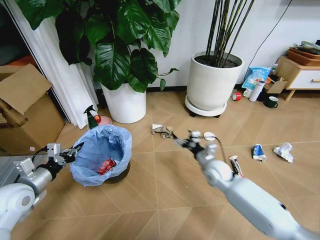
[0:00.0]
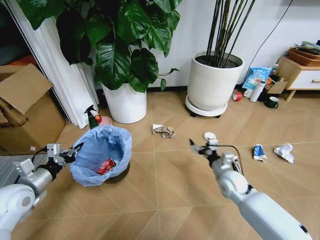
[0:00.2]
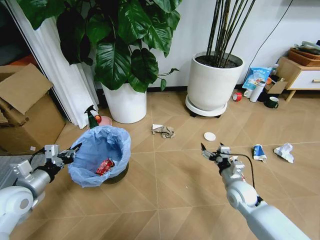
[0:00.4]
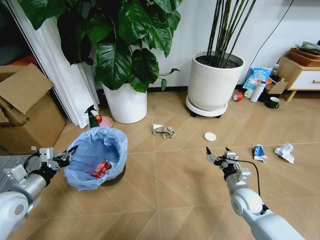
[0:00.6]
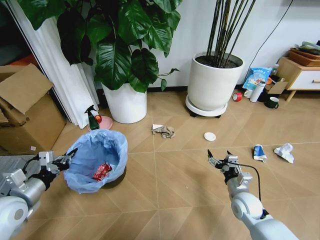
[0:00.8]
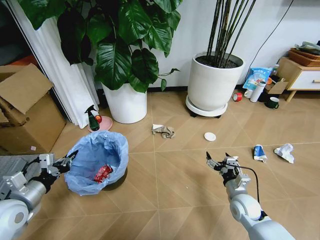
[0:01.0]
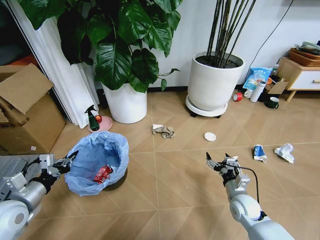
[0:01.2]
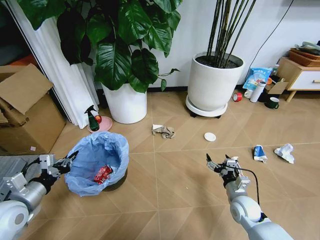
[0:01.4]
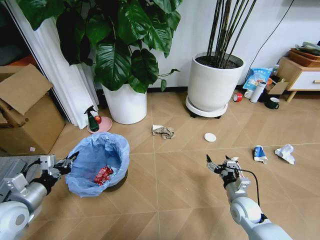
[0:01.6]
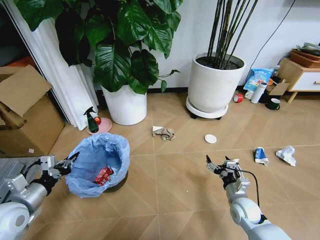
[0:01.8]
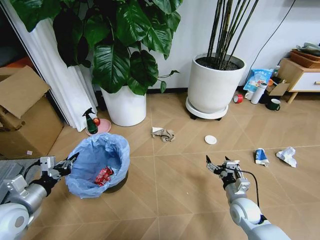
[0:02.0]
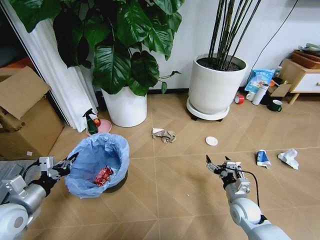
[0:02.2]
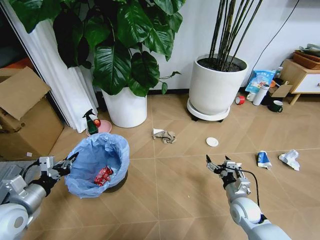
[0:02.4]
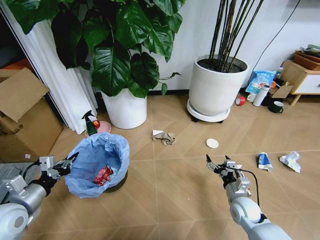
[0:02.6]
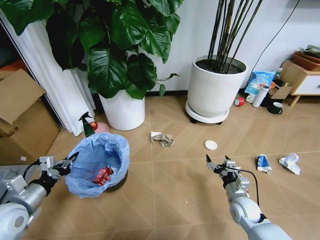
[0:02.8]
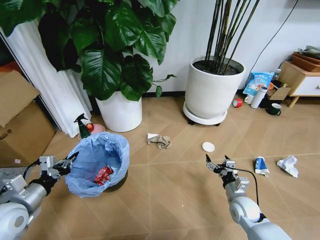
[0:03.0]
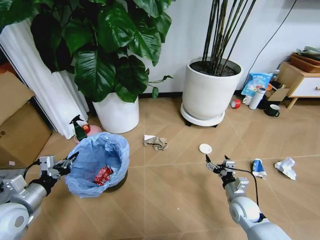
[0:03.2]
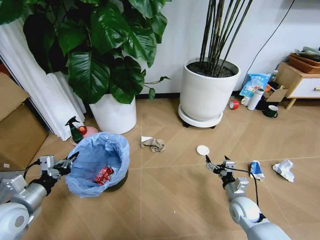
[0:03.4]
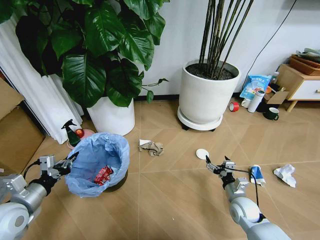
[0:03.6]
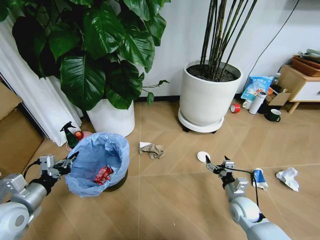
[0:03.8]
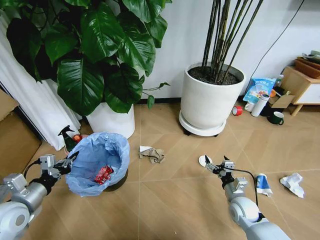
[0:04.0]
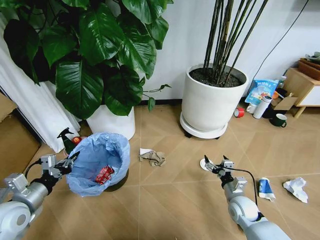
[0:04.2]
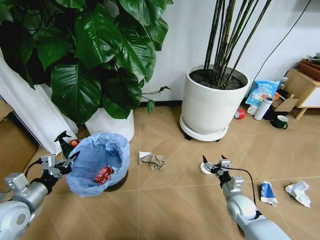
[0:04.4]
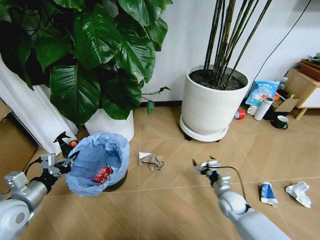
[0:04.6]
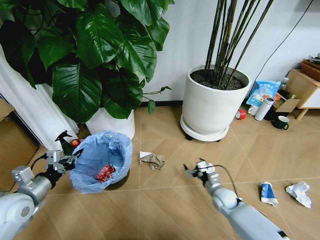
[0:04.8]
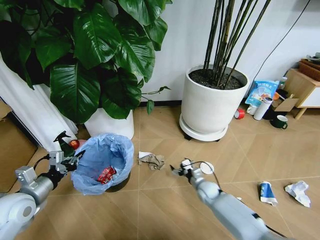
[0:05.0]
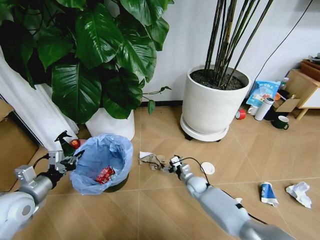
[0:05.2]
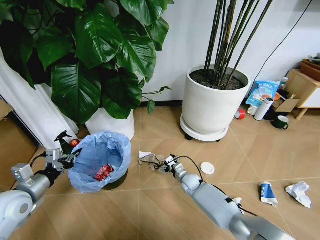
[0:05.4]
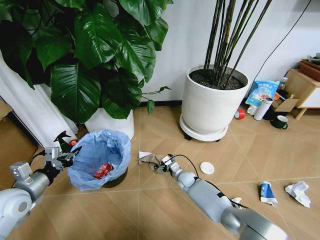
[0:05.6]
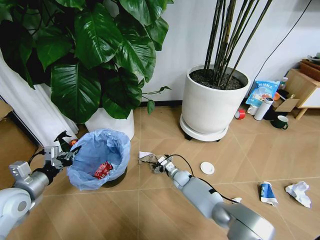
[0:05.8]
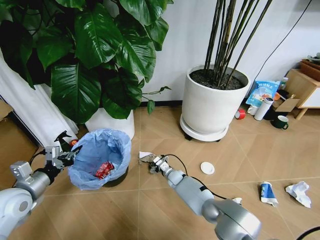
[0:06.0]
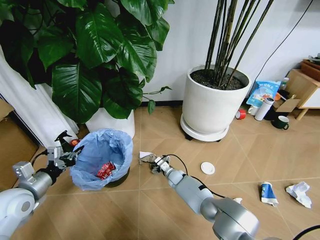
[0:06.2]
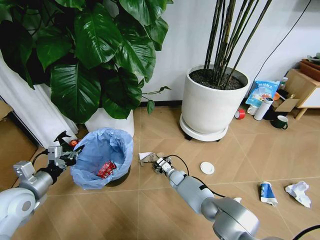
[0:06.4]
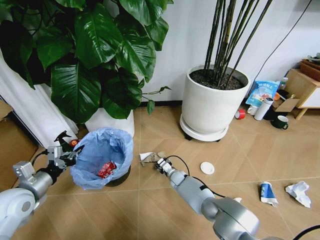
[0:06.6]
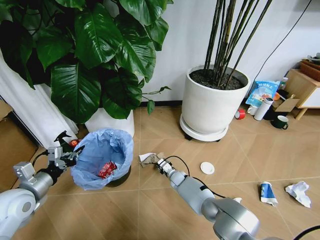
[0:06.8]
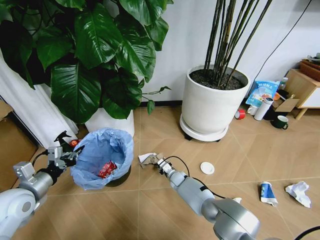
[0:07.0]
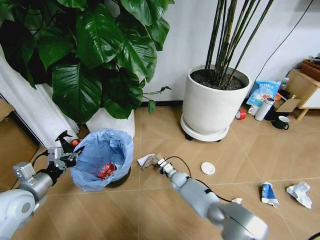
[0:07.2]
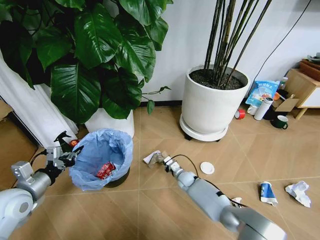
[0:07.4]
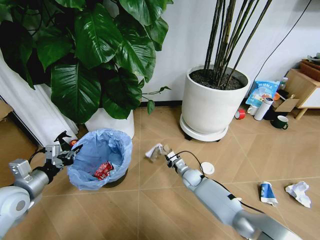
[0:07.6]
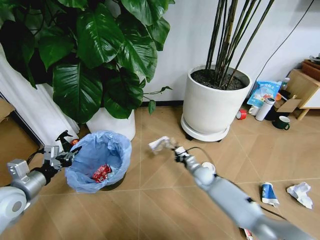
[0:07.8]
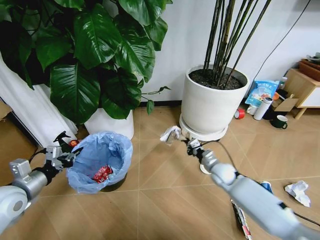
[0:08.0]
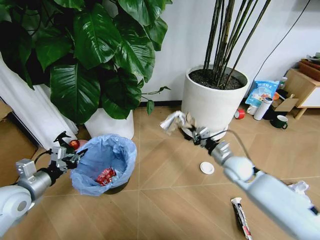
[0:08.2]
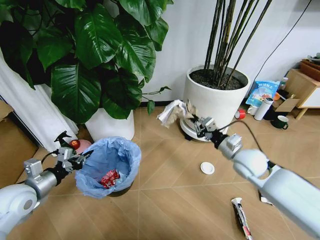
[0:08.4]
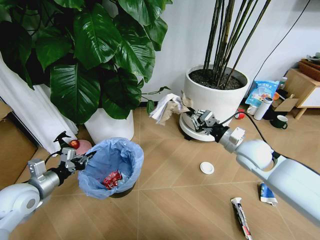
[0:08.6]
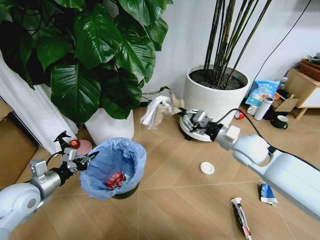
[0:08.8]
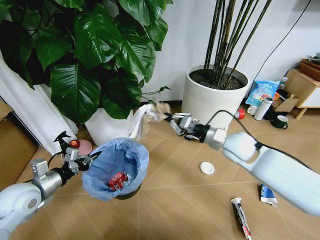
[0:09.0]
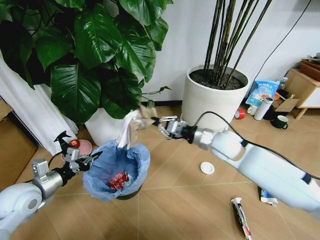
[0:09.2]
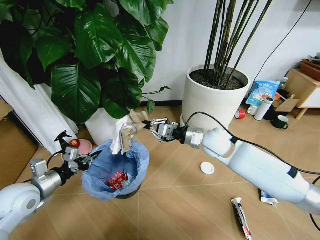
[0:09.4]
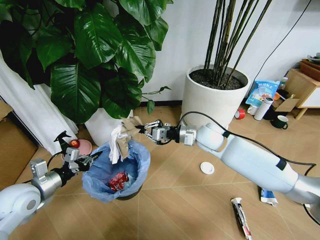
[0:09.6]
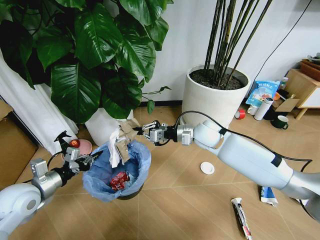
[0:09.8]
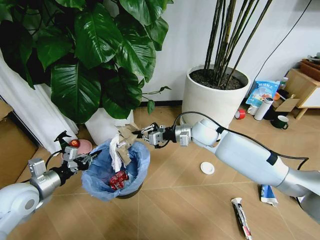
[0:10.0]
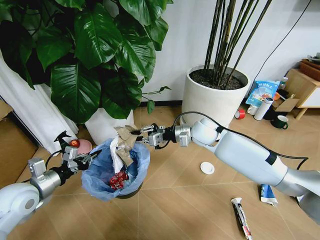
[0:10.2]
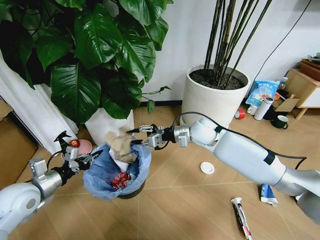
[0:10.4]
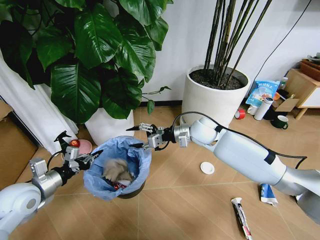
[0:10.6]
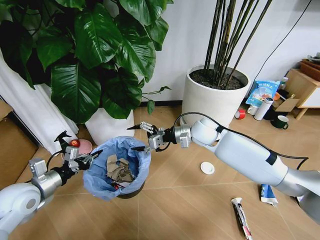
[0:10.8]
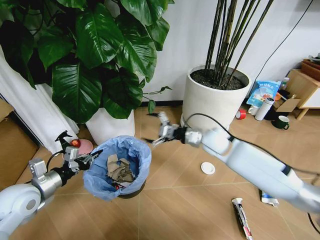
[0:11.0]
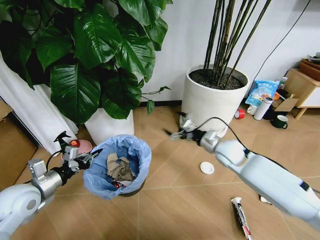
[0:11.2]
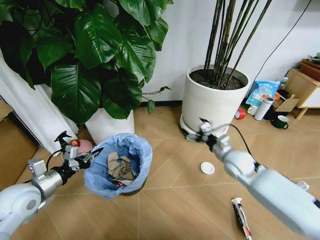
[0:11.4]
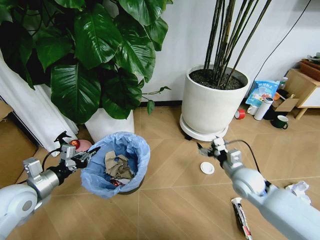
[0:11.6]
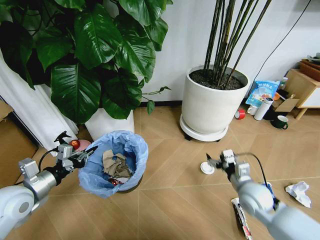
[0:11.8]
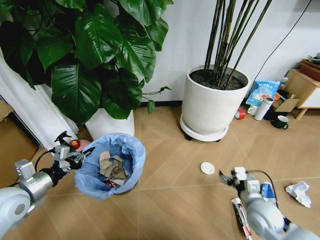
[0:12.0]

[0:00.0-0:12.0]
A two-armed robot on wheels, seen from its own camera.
Task of the whole recording: Pick up the trash bin and place the garbage on the floor into it.
0:00.0 to 0:01.6: The right gripper heads backward, to the right and downward, covering about 20 cm.
0:04.4 to 0:06.0: The right gripper goes approximately 30 cm to the left, forward and downward.
0:06.0 to 0:07.6: The right gripper goes some 5 cm to the right, and closes its fingers.
0:07.6 to 0:09.0: The right gripper heads upward, covering approximately 30 cm.
0:09.0 to 0:10.4: The right gripper shifts roughly 10 cm to the left and forward.
0:10.4 to 0:12.0: The right gripper travels backward, to the right and downward by approximately 35 cm, and opens.

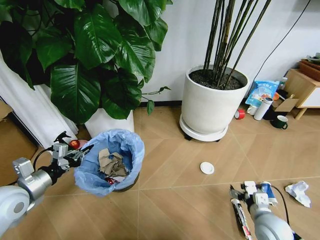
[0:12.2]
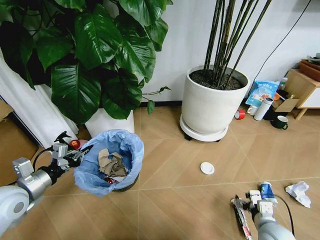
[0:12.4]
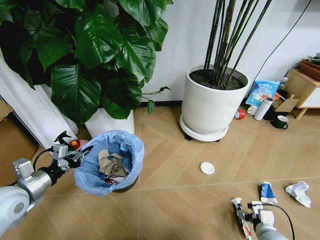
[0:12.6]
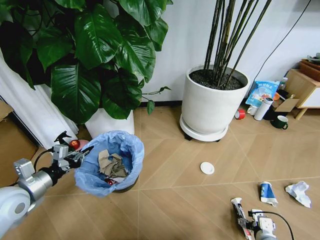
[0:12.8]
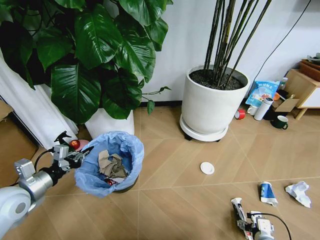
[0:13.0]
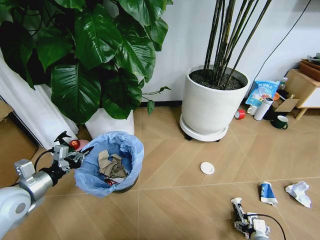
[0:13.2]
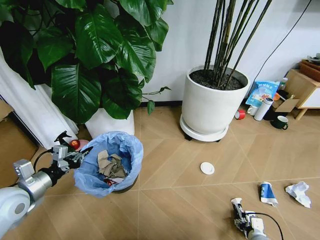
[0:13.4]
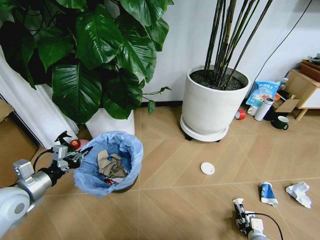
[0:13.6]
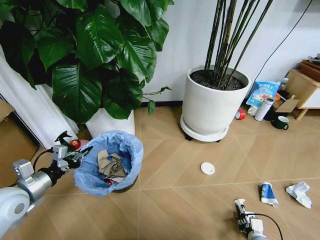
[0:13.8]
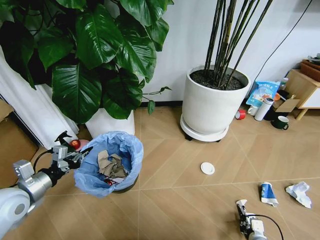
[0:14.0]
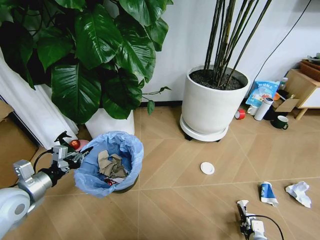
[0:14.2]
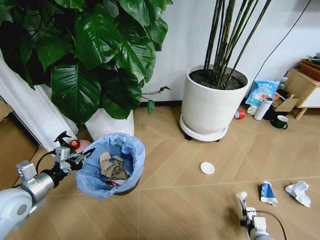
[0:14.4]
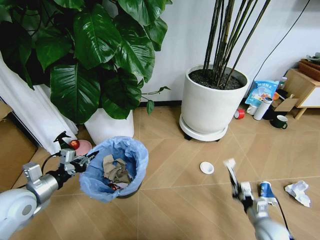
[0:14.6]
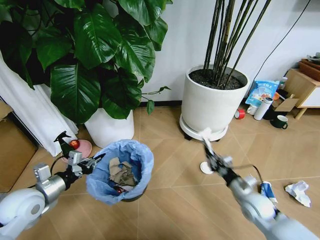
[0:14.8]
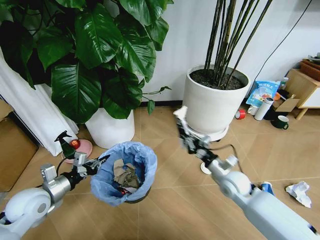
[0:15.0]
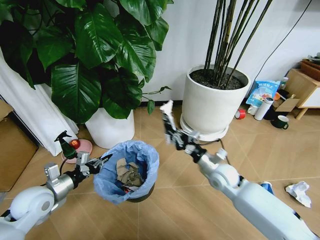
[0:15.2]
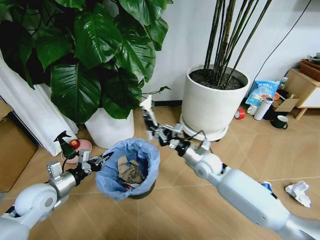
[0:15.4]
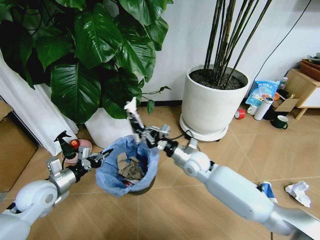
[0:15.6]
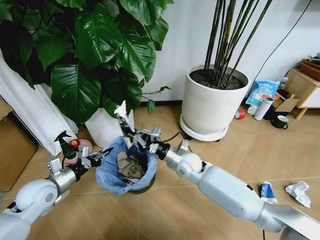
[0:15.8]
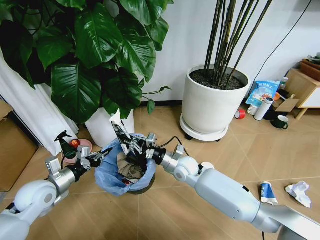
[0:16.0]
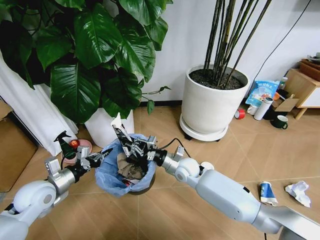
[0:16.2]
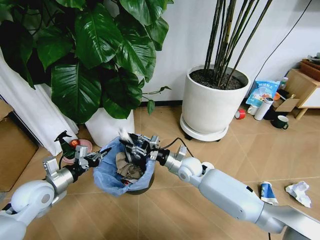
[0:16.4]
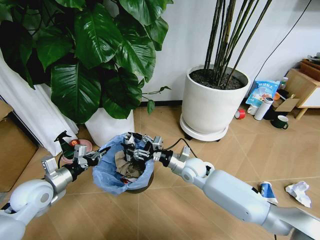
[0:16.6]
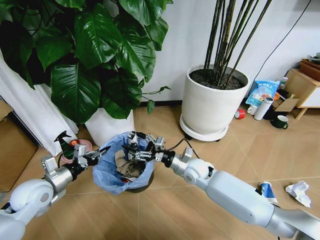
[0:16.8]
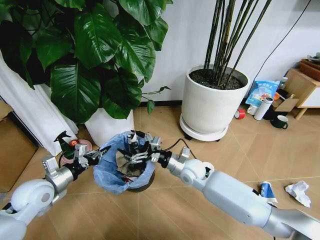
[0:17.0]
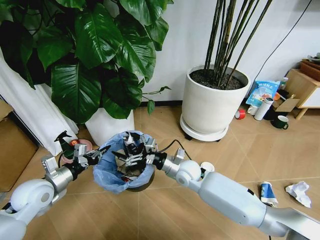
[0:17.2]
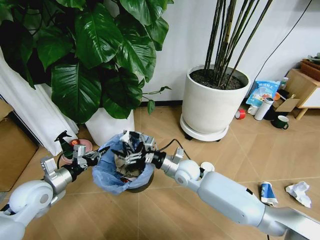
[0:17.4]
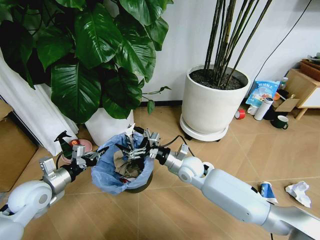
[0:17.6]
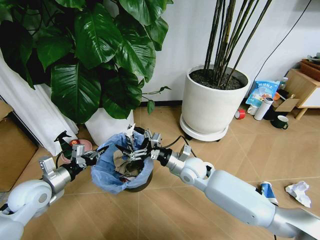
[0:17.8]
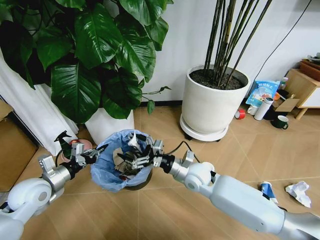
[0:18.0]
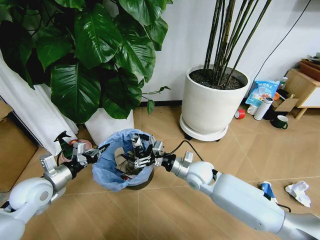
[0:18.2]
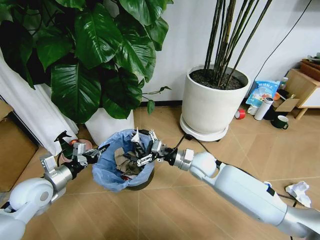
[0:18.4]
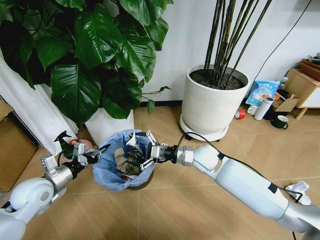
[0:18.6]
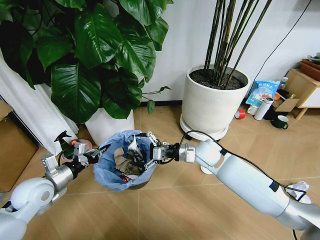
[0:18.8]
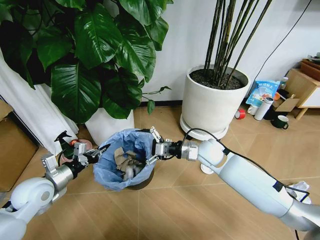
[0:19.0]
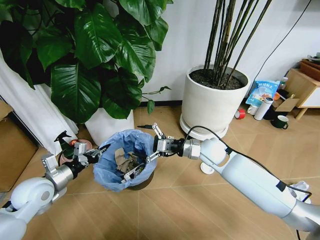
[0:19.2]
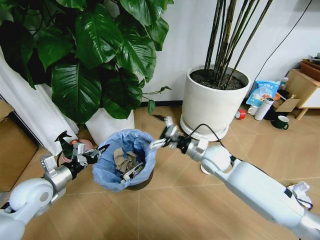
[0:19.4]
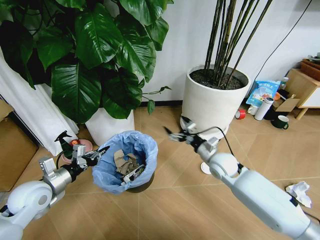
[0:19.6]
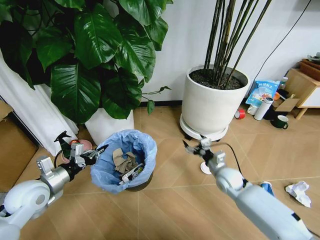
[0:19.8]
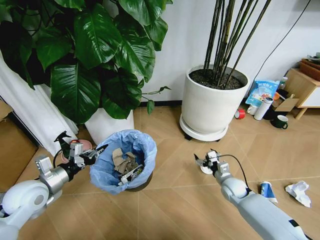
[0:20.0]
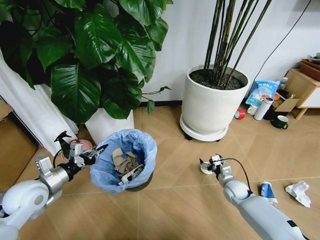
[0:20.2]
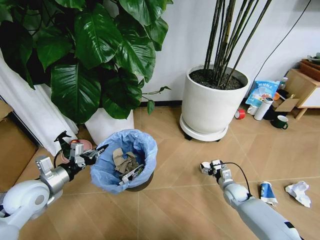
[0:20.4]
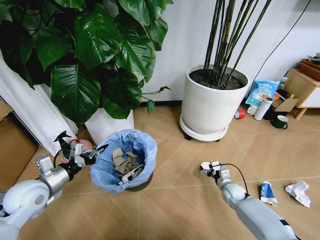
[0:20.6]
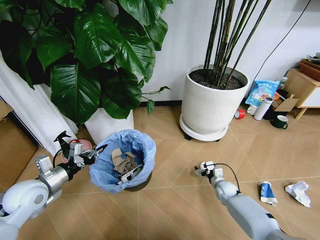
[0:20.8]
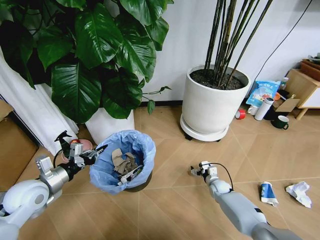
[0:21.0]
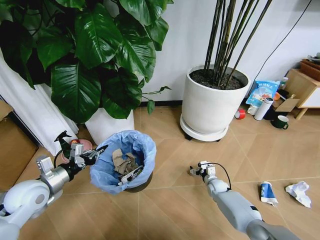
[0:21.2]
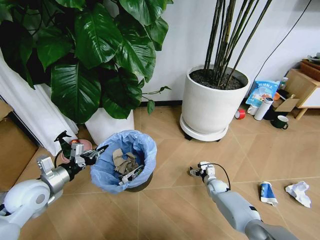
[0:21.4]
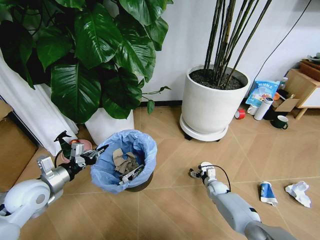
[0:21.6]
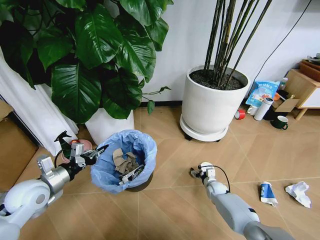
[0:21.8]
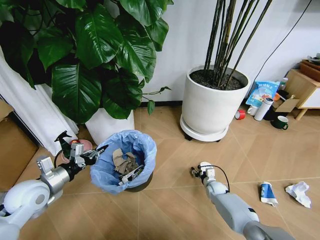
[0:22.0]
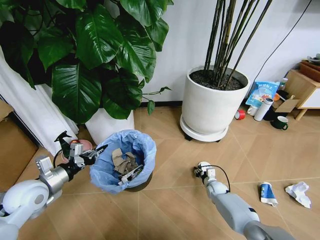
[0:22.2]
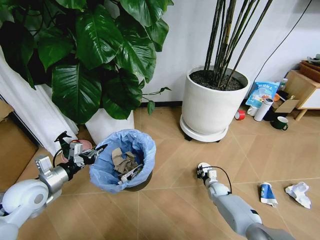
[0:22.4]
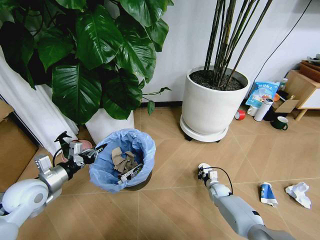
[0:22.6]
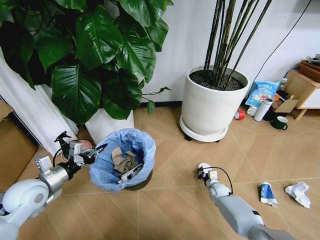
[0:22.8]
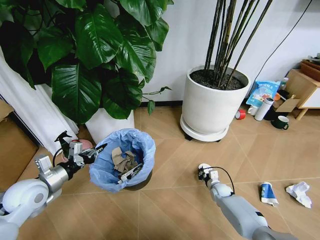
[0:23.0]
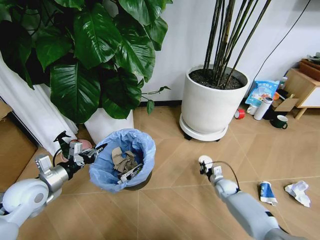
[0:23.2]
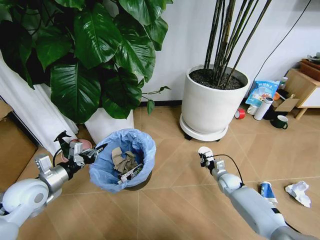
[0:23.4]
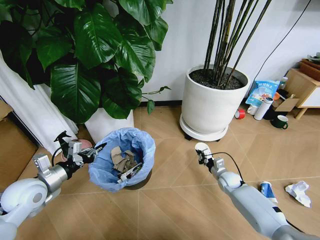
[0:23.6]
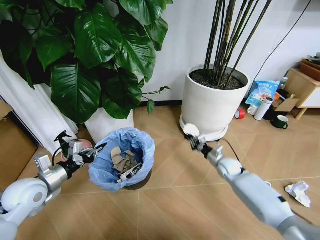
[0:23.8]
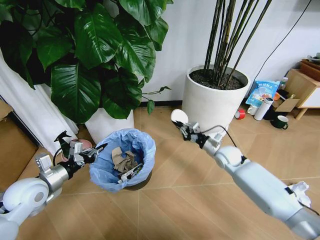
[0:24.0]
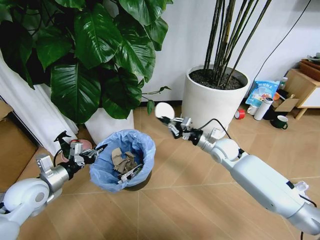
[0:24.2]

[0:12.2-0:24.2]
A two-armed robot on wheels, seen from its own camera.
Task of the whole recording: Pick up the trash bin and place the garbage on the floor into it.
0:12.2 to 0:13.8: The right gripper shifts approximately 15 cm downward, and closes.
0:13.8 to 0:15.2: The right gripper heads forward, upward and to the left, covering roughly 30 cm, and closes up. Meanwhile the left gripper shifts some 5 cm downward.
0:15.2 to 0:16.6: The right gripper shifts some 10 cm to the left, and opens up.
0:16.6 to 0:18.2: The right gripper opens its fingers.
0:18.2 to 0:19.8: The right gripper moves to the right and downward, approximately 15 cm.
0:19.8 to 0:21.2: The right gripper moves downward, some 15 cm.
0:21.2 to 0:22.6: The right gripper closes up.
0:22.6 to 0:24.2: The right gripper goes roughly 30 cm upward.
